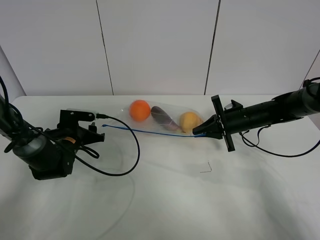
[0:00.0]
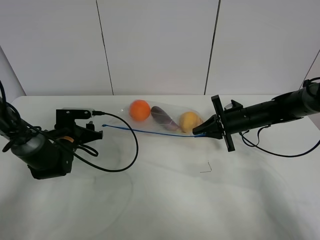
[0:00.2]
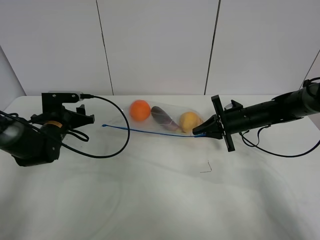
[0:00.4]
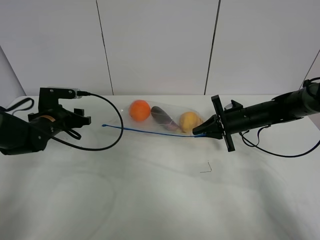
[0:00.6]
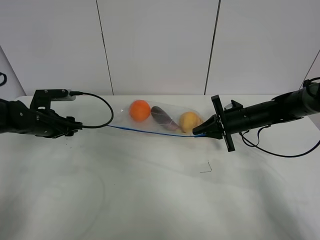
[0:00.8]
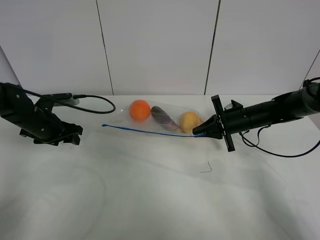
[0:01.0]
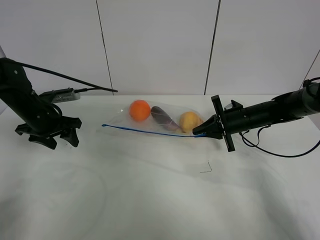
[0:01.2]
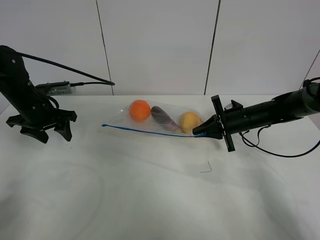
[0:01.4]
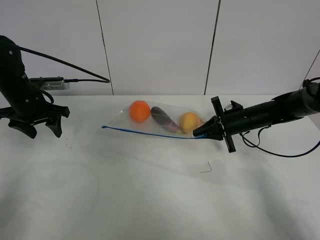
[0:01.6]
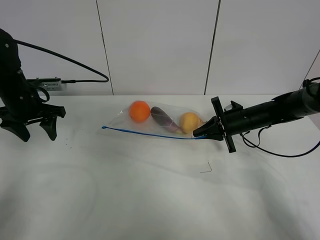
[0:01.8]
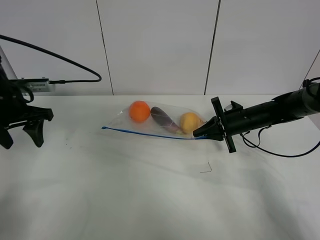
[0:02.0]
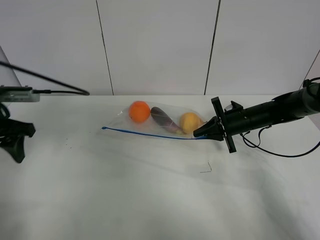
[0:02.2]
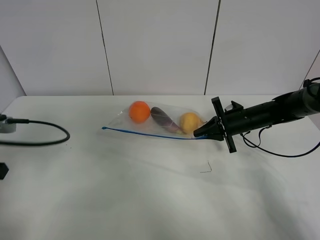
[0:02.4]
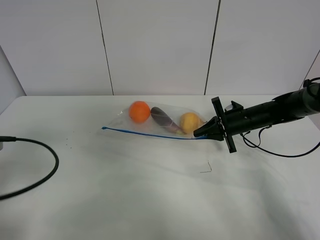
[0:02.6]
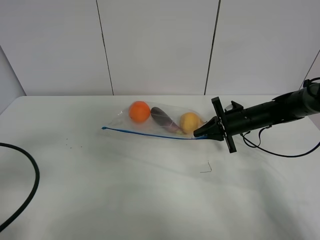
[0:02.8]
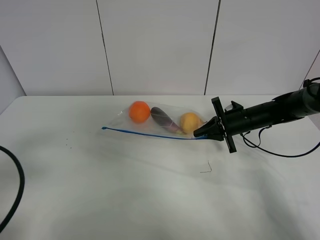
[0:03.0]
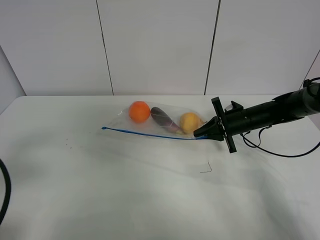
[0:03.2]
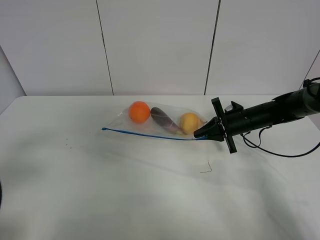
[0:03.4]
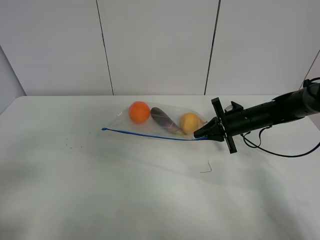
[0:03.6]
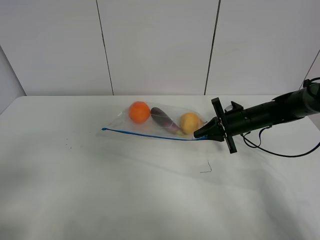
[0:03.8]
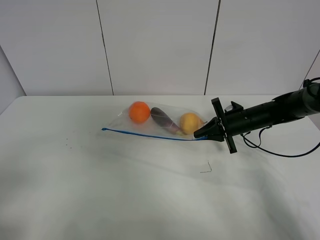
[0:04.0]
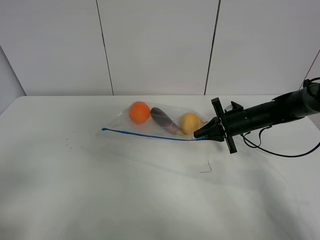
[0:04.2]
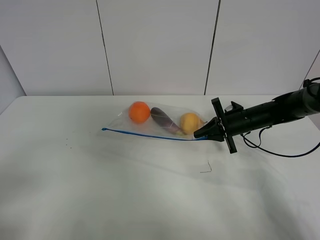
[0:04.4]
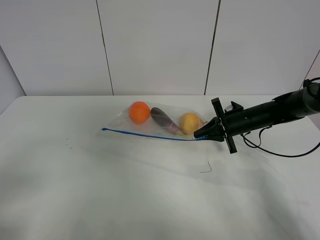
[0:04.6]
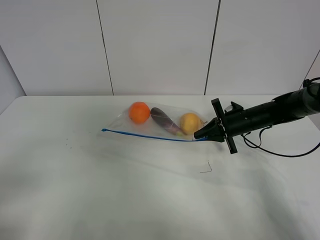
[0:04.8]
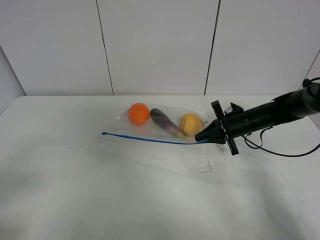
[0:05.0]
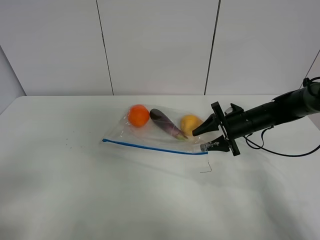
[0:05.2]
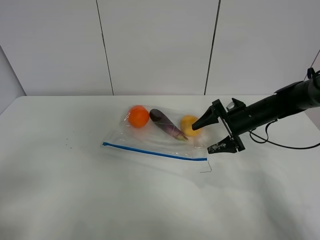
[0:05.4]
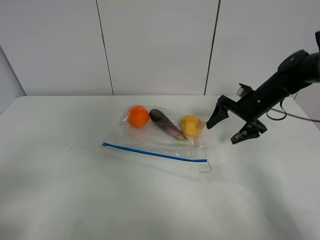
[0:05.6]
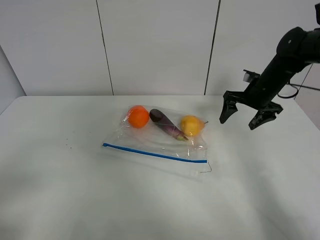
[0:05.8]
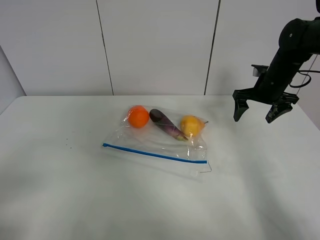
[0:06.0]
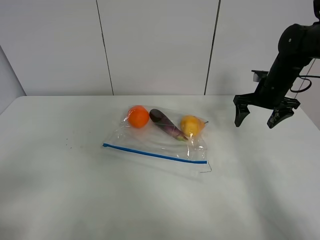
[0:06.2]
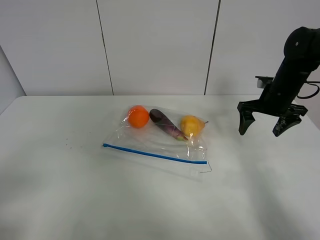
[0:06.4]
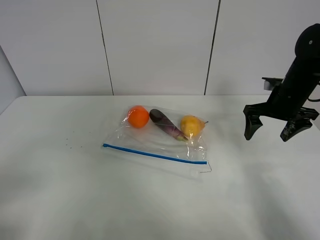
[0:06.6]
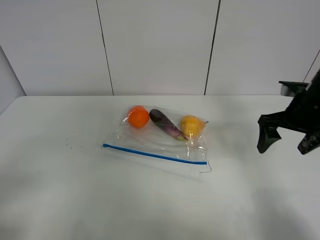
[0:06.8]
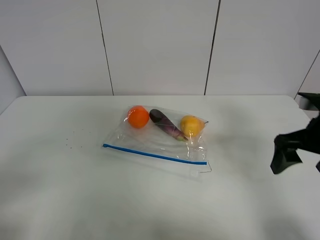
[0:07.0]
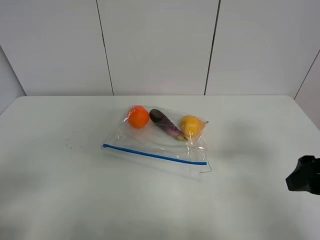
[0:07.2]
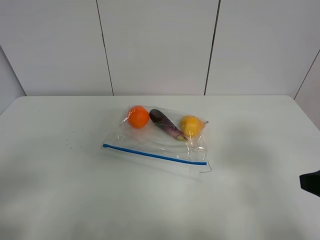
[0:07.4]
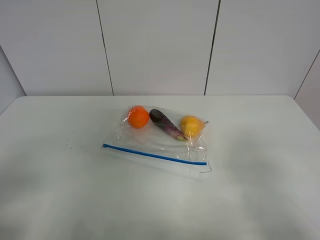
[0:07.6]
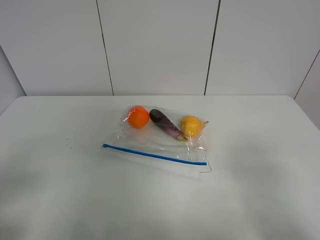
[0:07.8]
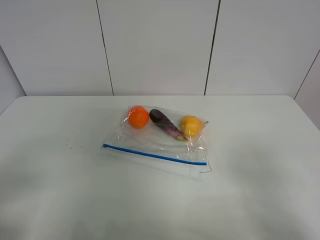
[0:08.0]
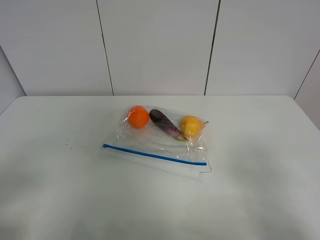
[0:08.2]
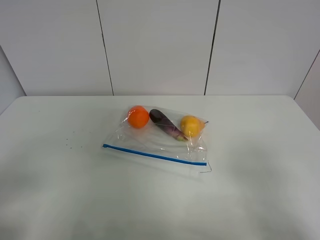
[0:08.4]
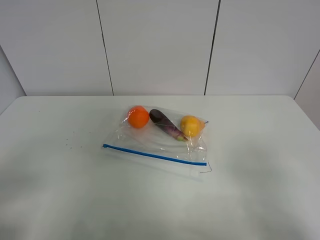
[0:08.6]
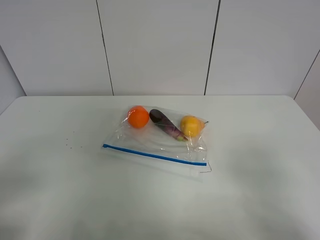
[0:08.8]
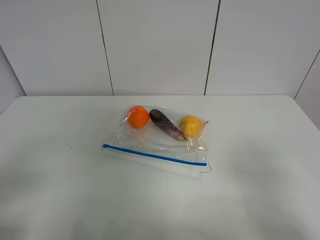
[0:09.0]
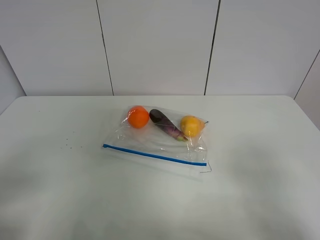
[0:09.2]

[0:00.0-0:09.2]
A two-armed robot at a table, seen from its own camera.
0:00.0 to 0:01.6: The left gripper shifts about 15 cm upward and to the left.
0:01.6 to 0:03.0: The left gripper shifts approximately 30 cm backward.
0:03.0 to 0:04.6: The left gripper goes about 10 cm backward.
0:04.6 to 0:06.2: The right gripper travels upward by approximately 10 cm, and opens up.
0:06.2 to 0:07.6: The right gripper shifts some 35 cm backward.

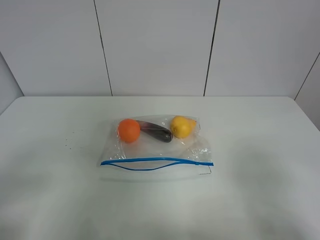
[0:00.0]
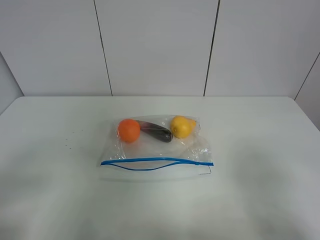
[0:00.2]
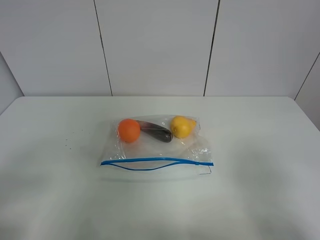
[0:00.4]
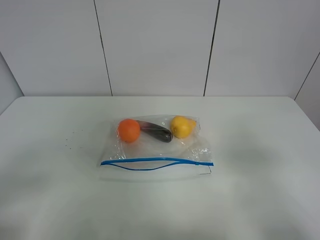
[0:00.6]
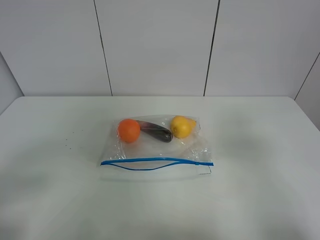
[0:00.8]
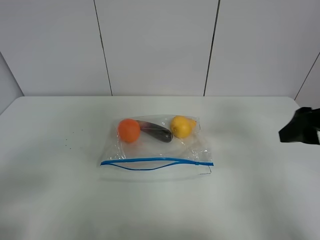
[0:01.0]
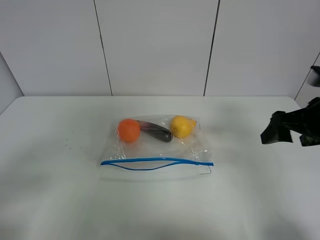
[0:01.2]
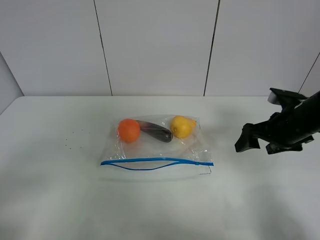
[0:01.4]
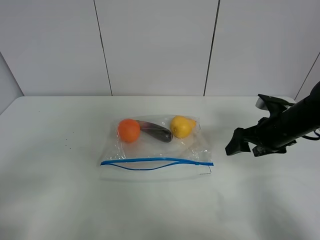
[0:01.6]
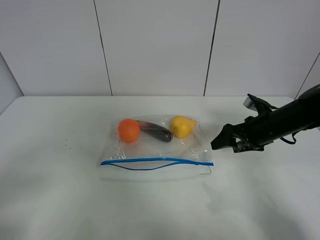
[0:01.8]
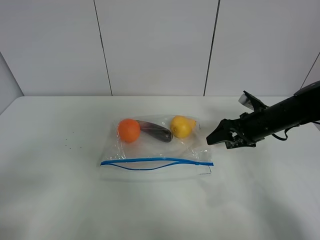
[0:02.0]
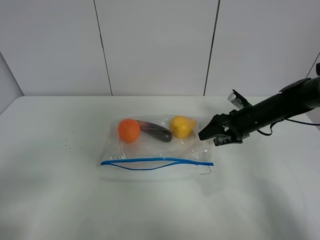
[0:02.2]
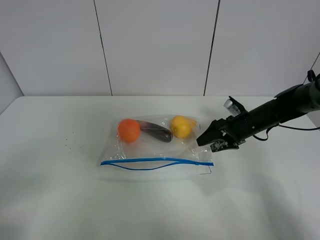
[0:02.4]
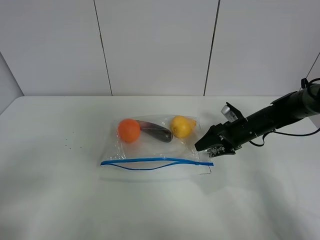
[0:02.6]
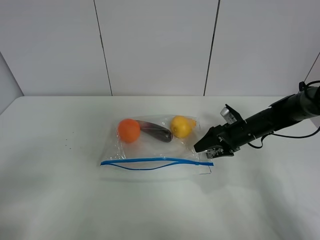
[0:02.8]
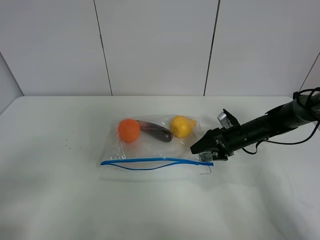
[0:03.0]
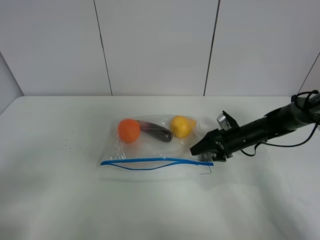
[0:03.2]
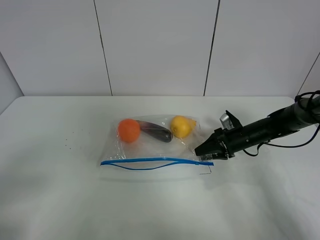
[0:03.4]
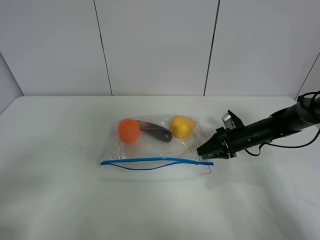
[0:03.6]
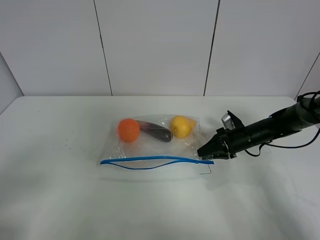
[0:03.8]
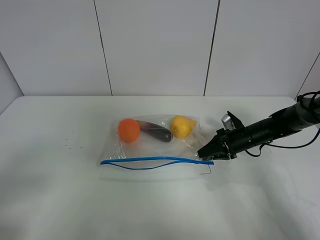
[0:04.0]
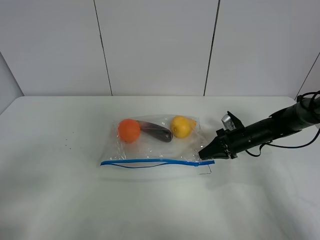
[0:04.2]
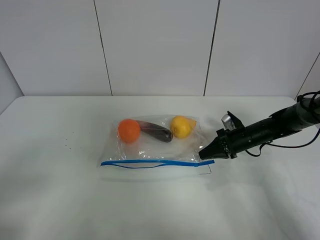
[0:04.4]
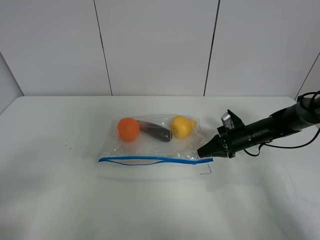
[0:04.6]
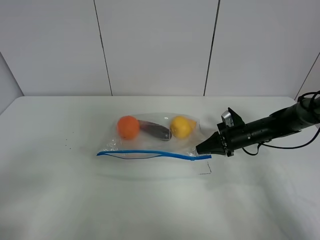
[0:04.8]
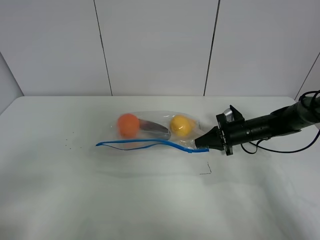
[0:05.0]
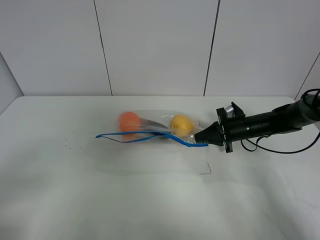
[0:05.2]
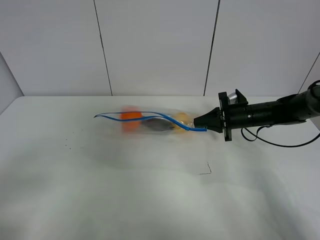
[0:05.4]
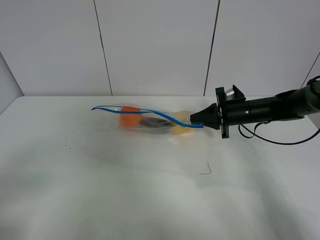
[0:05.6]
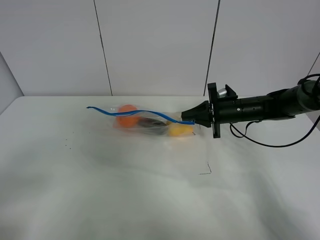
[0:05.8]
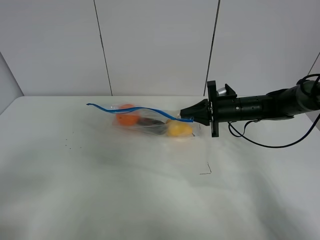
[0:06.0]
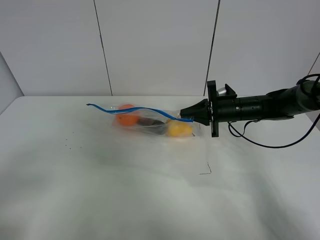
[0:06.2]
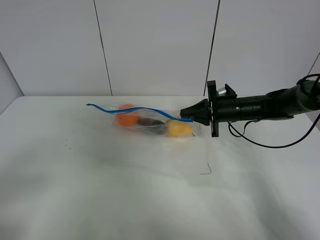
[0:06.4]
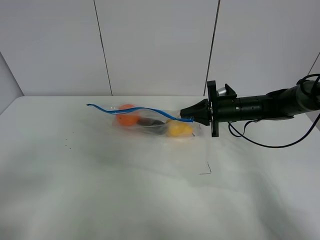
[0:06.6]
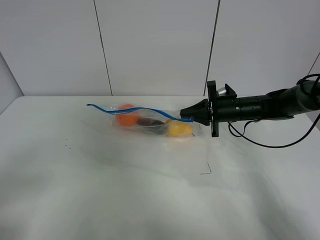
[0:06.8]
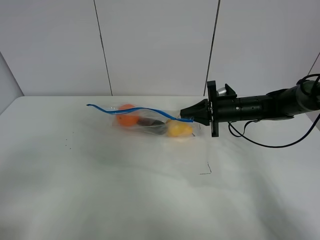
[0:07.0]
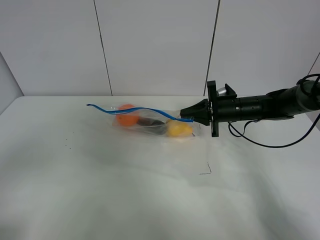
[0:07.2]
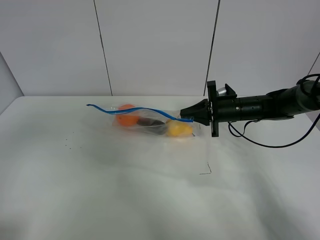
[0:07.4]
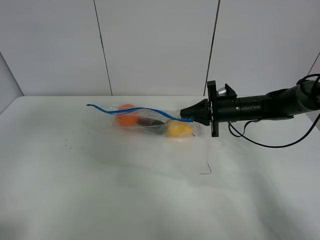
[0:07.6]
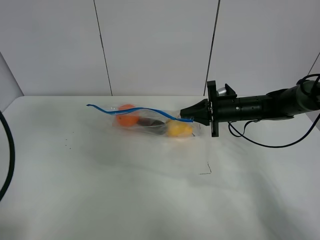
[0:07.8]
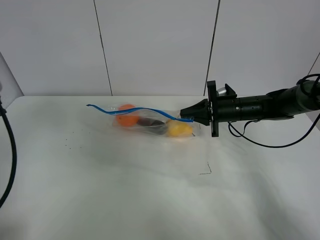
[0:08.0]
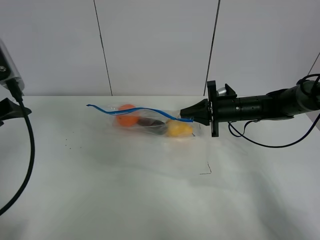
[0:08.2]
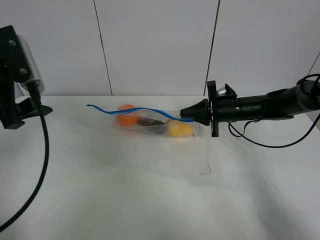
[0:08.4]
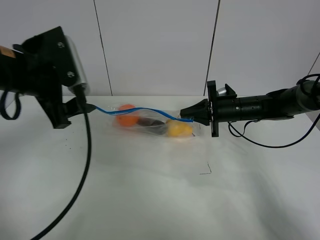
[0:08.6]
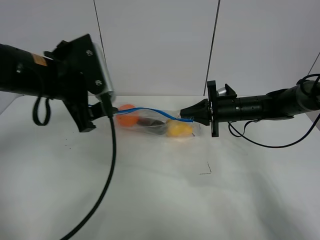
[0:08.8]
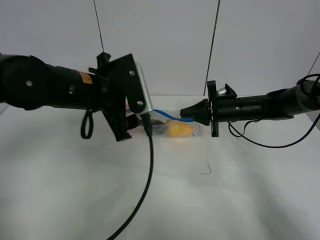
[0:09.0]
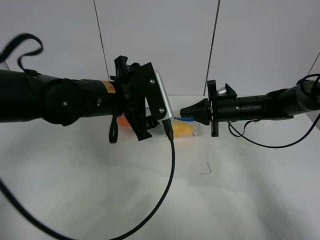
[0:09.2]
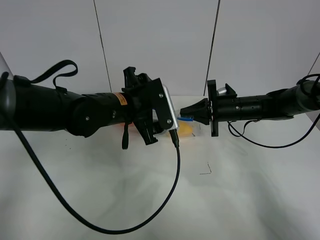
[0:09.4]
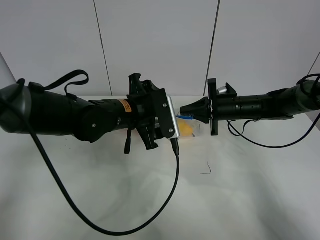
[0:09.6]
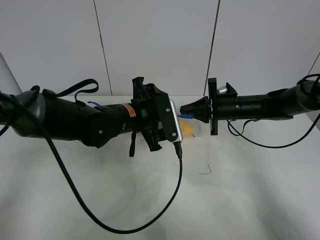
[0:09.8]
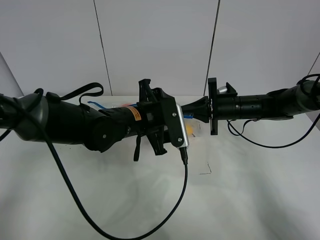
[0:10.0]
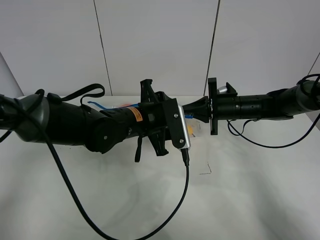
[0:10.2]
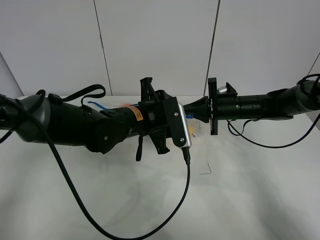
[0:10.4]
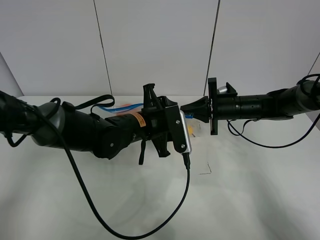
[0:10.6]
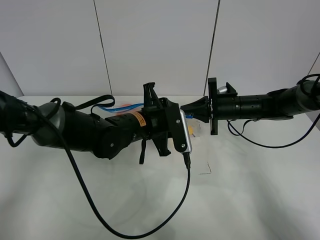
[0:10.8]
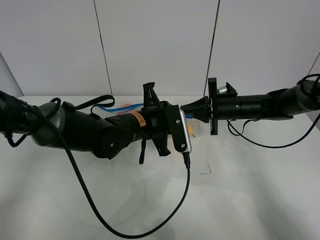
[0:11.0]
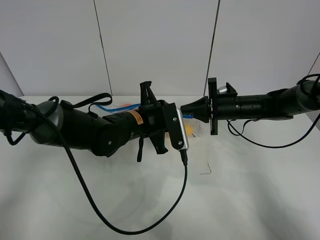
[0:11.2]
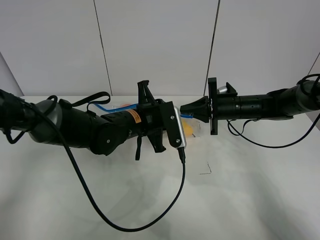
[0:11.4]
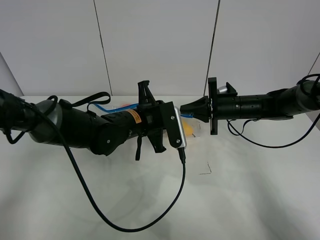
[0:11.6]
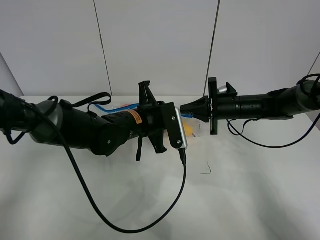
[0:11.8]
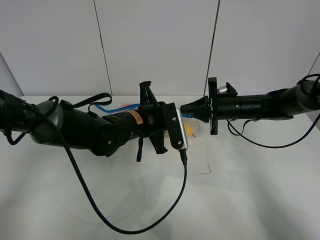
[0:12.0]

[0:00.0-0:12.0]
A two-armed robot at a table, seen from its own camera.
Step, 0:00.0 to 0:04.2: Grasp the fruit bag with right gripper.
Step, 0:04.4 to 0:06.0: Lift the fruit bag with your right gripper.
0:00.0 to 0:01.6: The right gripper heads forward, covering about 30 cm.
0:01.6 to 0:03.0: The right gripper heads downward and forward, covering roughly 15 cm.
0:03.0 to 0:04.4: The right gripper closes.
0:04.4 to 0:06.0: The right gripper is displaced upward by some 10 cm.
0:06.0 to 0:07.6: The left gripper heads forward and upward, covering approximately 15 cm.
0:07.6 to 0:09.0: The left gripper heads to the right, forward and downward, covering some 30 cm.
0:09.0 to 0:10.4: The left gripper moves downward and to the right, roughly 10 cm.
0:10.4 to 0:12.0: The left gripper closes.

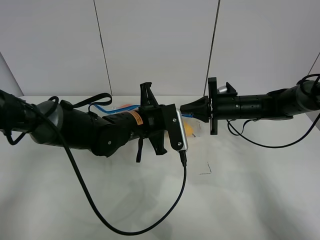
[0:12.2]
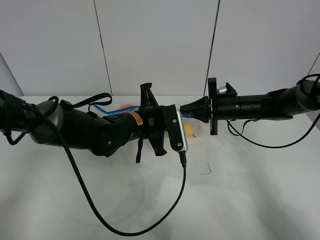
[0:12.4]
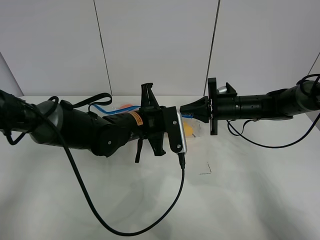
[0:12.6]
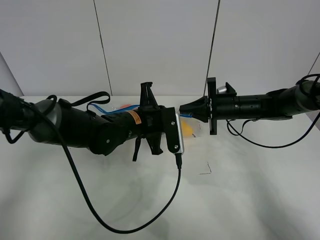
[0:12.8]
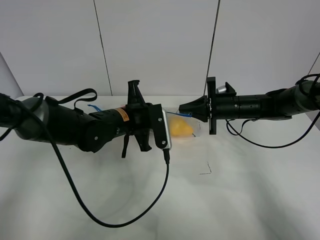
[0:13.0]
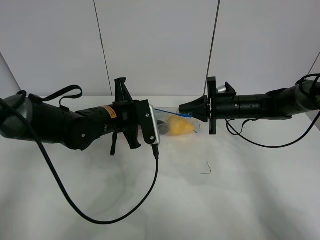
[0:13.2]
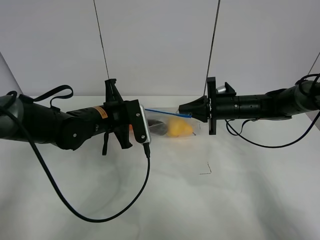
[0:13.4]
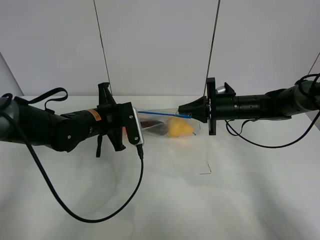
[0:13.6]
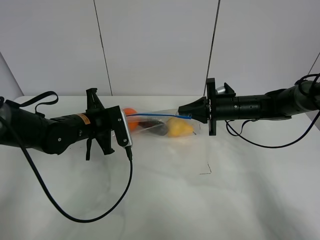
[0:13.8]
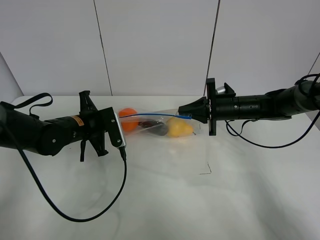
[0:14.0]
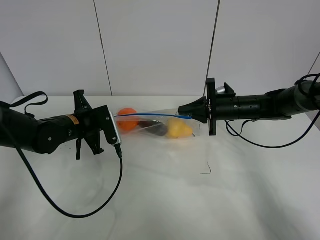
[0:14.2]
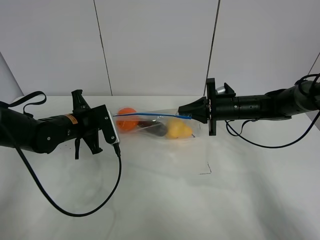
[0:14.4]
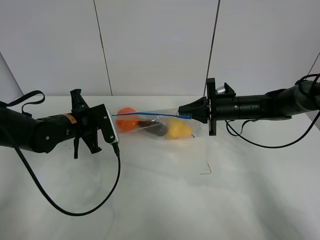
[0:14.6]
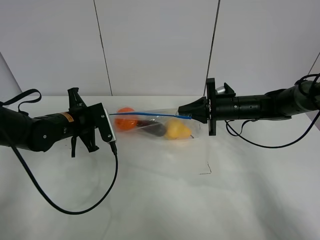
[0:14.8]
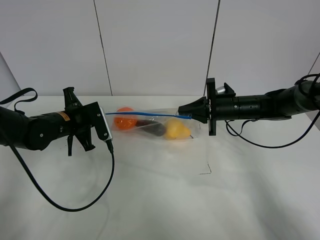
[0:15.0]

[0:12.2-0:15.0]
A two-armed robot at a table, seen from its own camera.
0:12.2 to 0:13.6: The left gripper is displaced to the left by about 10 cm.
0:13.6 to 0:15.0: The left gripper is displaced to the left by roughly 5 cm.
